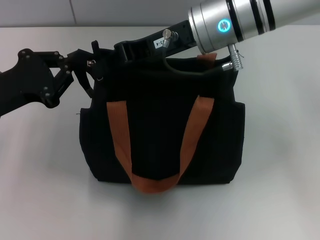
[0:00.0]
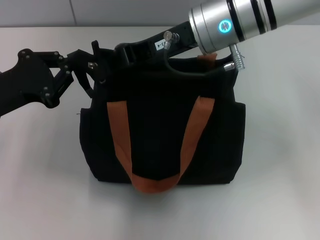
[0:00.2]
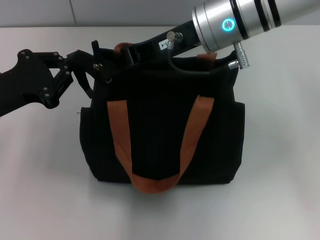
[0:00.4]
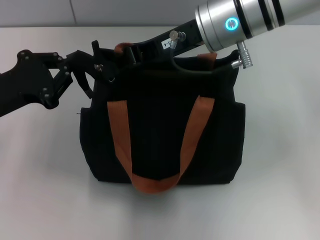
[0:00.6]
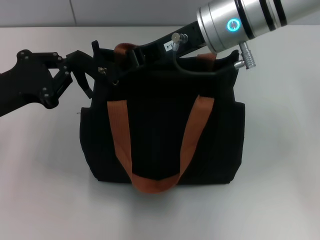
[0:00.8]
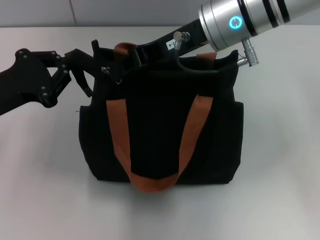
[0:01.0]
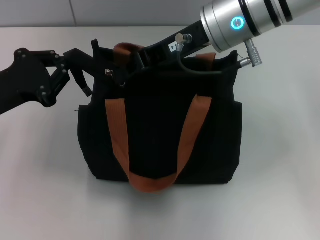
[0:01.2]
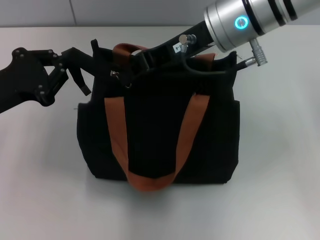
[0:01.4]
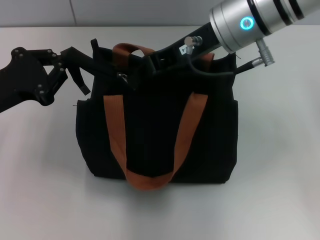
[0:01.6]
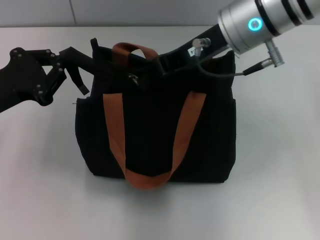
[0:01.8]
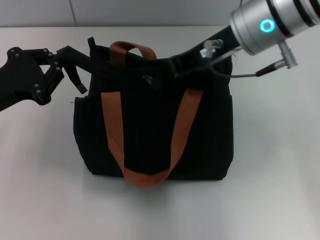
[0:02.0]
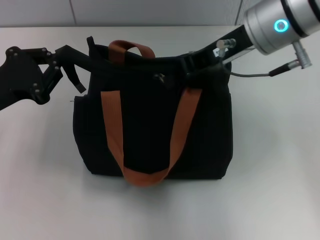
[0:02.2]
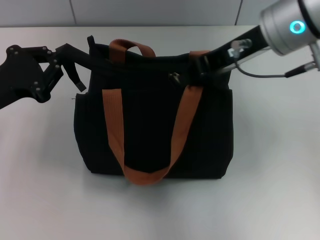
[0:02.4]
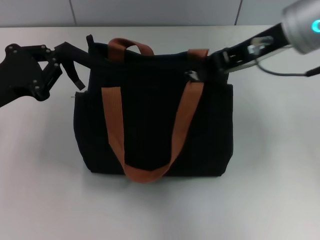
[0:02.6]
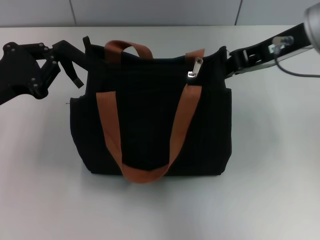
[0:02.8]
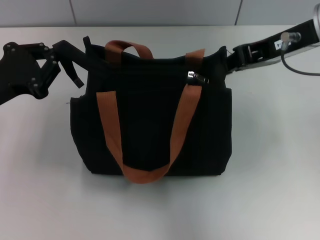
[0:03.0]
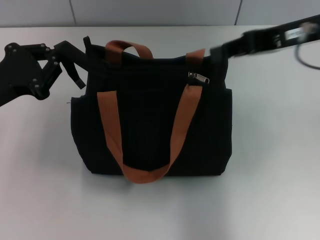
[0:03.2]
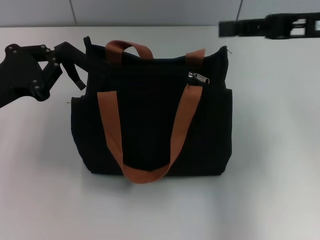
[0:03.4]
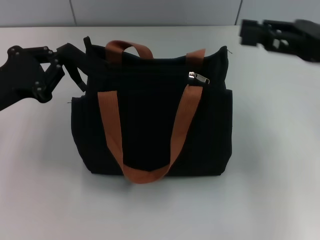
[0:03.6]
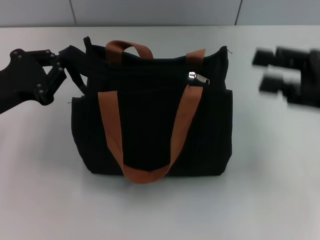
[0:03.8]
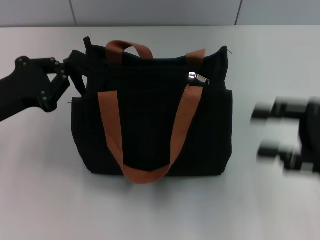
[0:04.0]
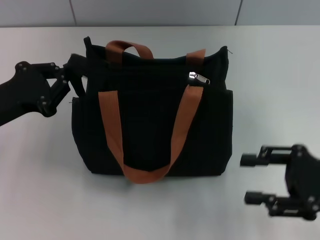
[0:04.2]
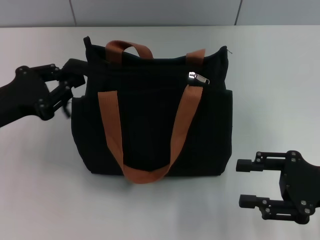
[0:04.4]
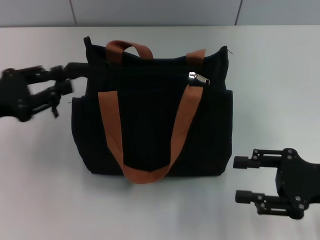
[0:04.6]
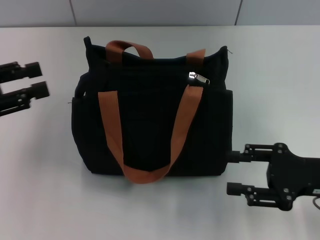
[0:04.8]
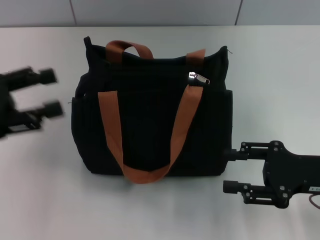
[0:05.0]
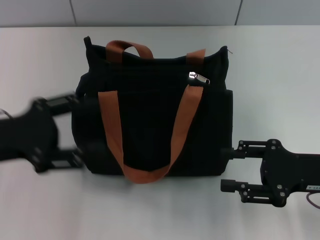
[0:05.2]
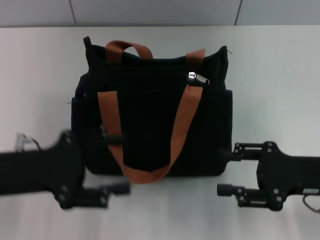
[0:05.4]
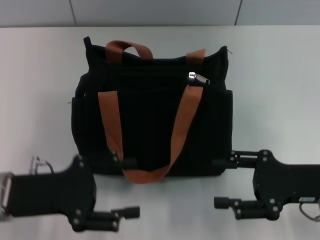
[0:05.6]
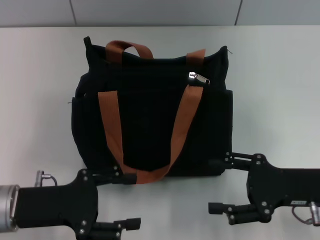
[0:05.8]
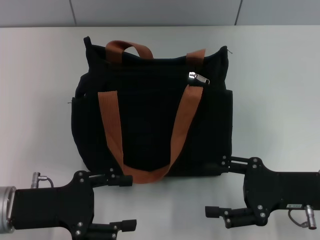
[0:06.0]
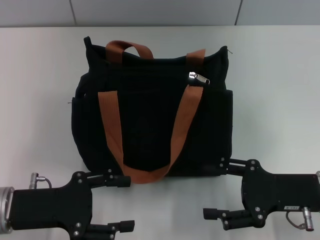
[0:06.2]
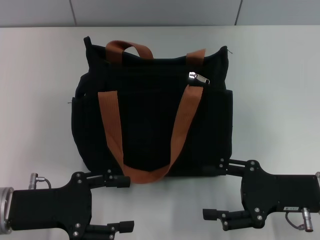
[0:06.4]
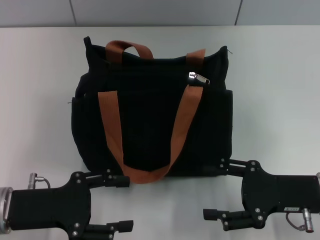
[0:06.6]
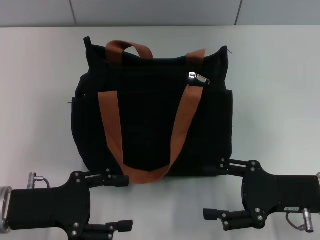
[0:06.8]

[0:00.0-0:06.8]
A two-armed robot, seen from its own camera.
Step, 0:00.0 to 0:03.2: Pull up the zipper with your right hand.
0:00.0 to 0:01.4: There are only small adjustments of the grippers.
0:01.4 to 0:02.8: The right gripper travels to the right by approximately 10 cm.
0:02.8 to 0:04.0: The right gripper heads downward, to the right and backward, covering roughly 20 cm, and opens up.
0:04.0 to 0:05.4: The left gripper ends up approximately 5 cm from where it was, and opens. Meanwhile the right gripper moves downward, approximately 5 cm.
0:05.4 to 0:06.8: The left gripper shifts by roughly 5 cm.
